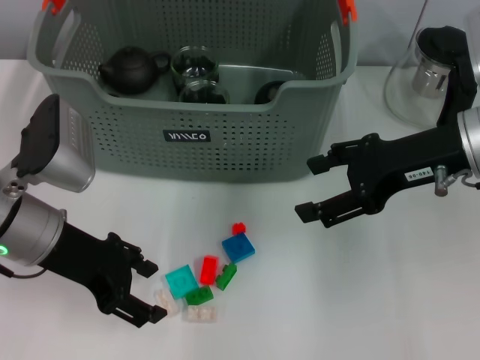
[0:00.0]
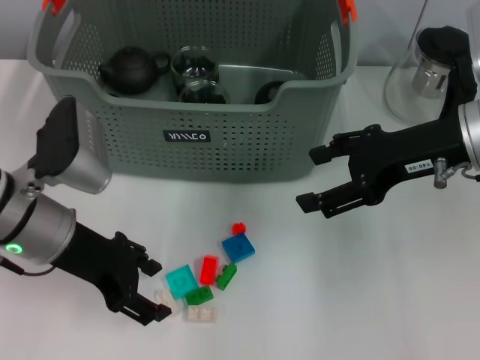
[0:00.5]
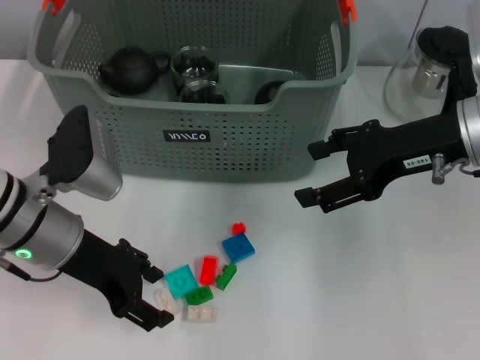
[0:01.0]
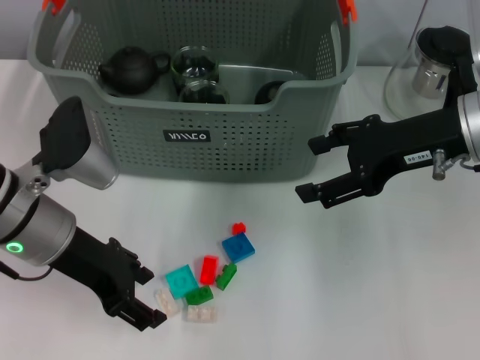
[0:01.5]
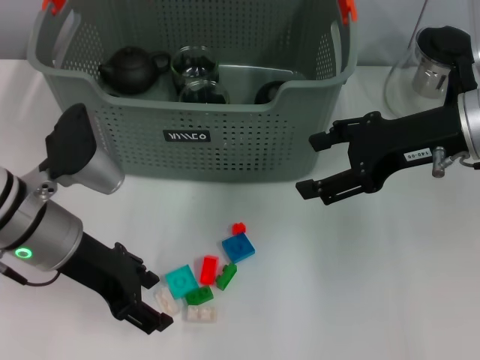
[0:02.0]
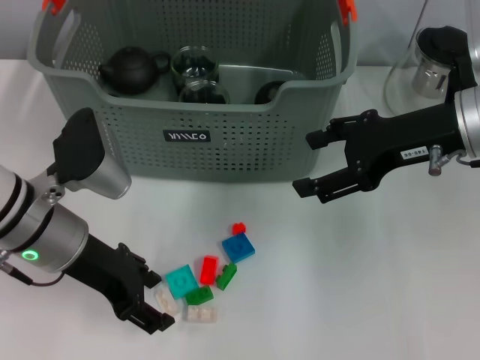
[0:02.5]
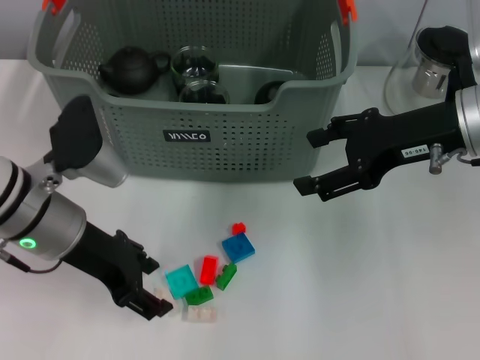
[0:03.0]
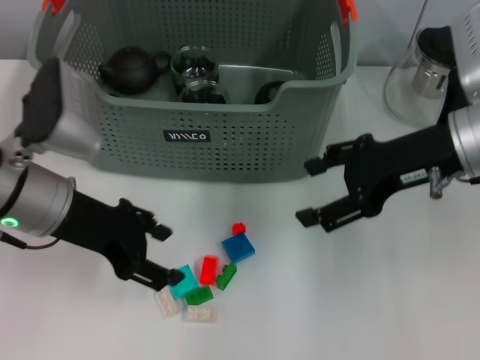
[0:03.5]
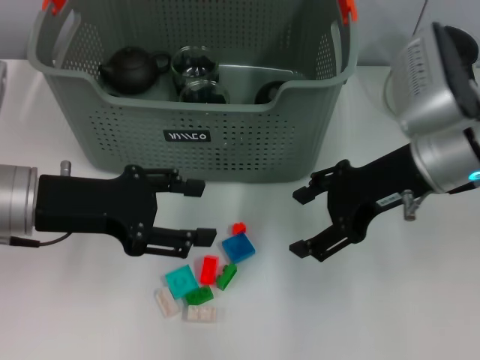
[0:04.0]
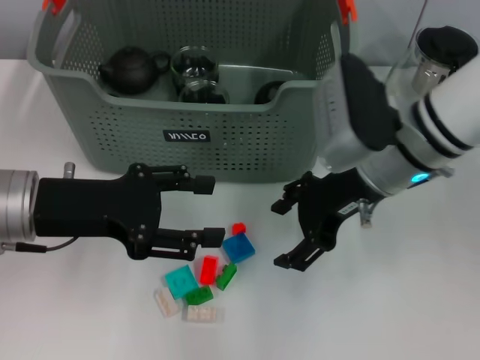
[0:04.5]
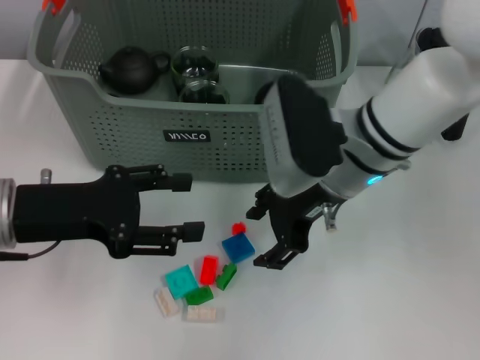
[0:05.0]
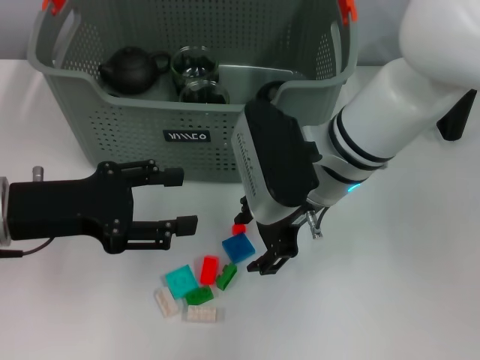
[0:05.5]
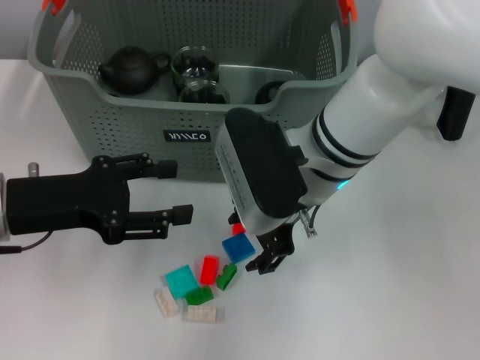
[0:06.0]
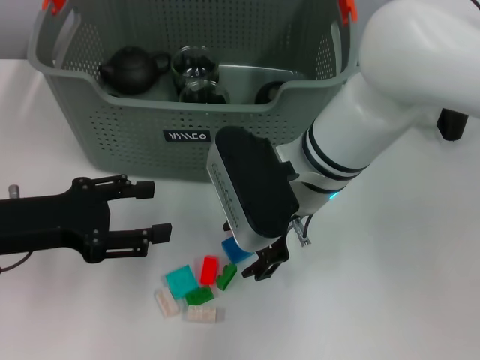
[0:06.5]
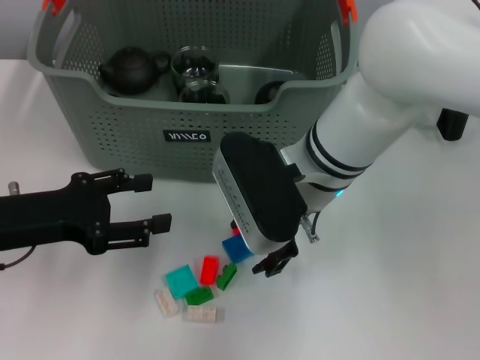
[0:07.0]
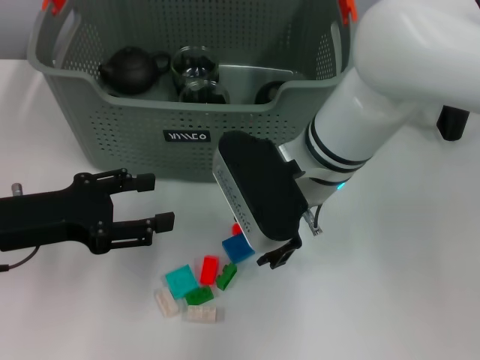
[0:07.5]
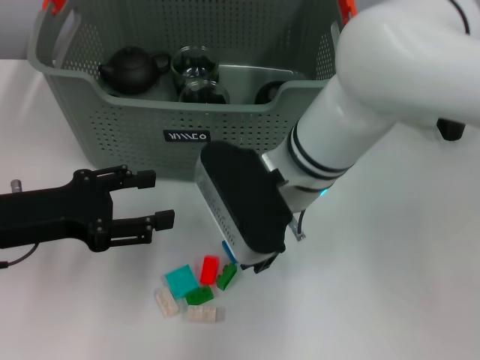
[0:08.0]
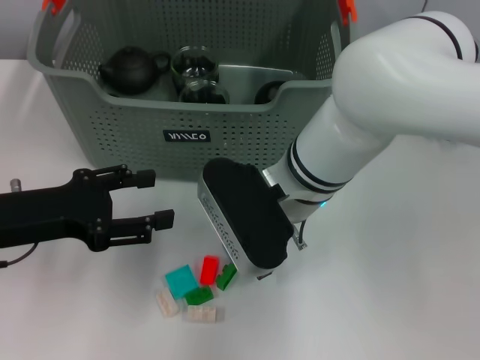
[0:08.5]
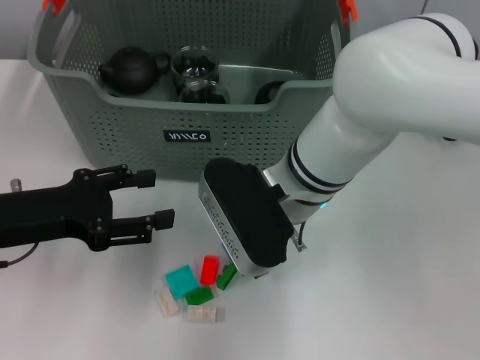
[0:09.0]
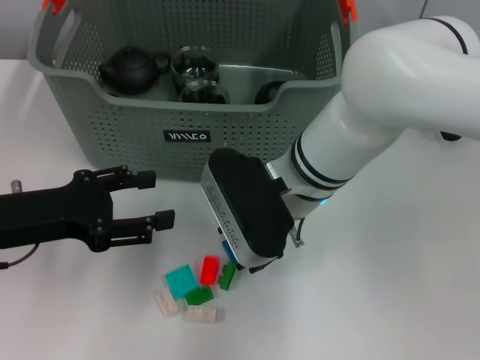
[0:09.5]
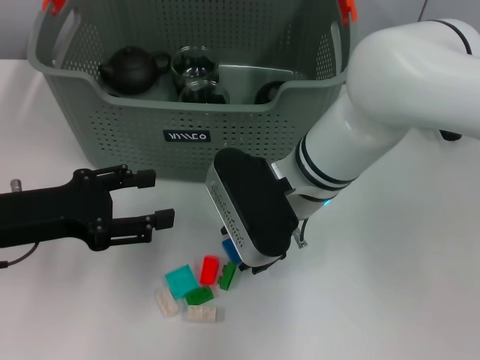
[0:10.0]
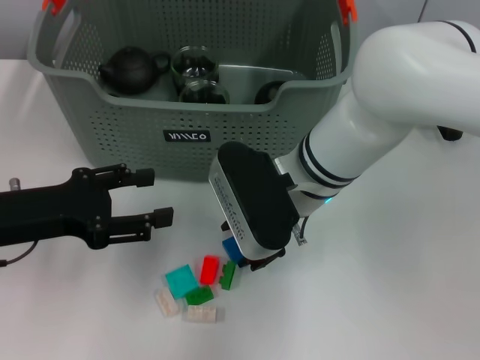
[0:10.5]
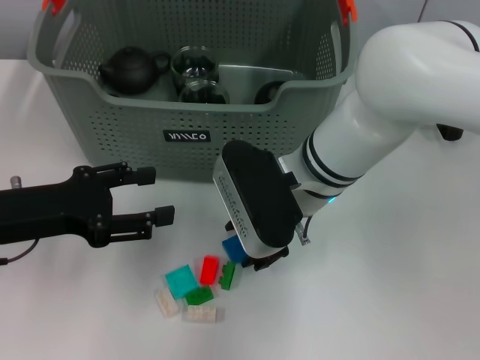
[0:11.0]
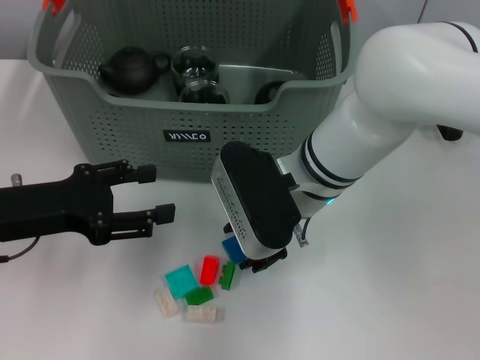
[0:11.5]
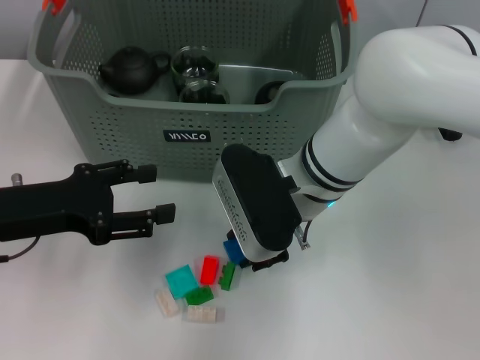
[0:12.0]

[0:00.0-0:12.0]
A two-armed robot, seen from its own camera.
Task of the whole recording: pick up the teacup on the table and place it into the storage bin, pick up the block on the table and place it into the storage bin.
0:00.0 to 0:02.0: The grippers move only a little.
0:04.0 to 0:06.0: The right gripper travels to the left by approximately 15 cm.
0:06.0 to 0:10.0: The grippers make only small movements.
0:10.0 to 0:12.0: Both grippers stay put.

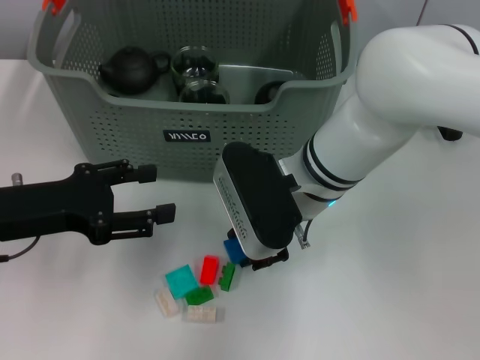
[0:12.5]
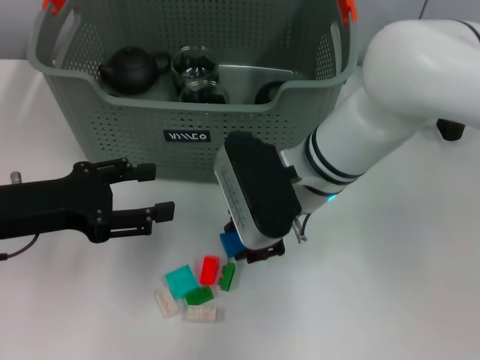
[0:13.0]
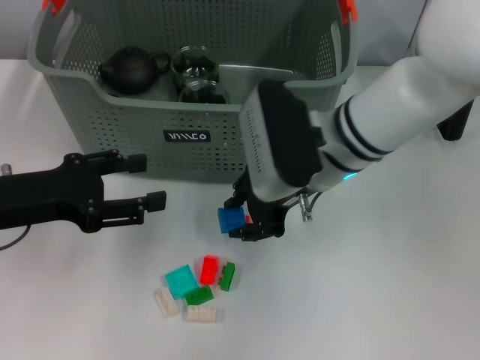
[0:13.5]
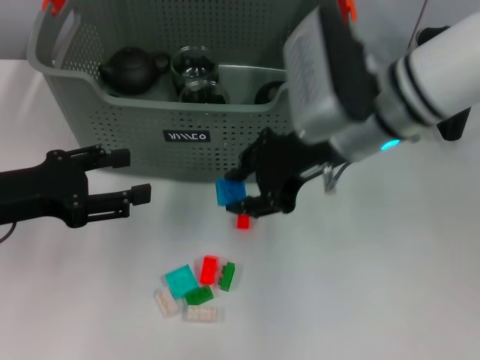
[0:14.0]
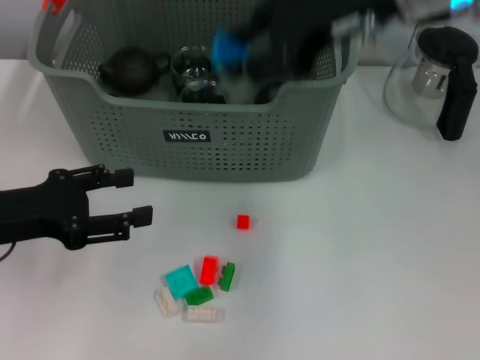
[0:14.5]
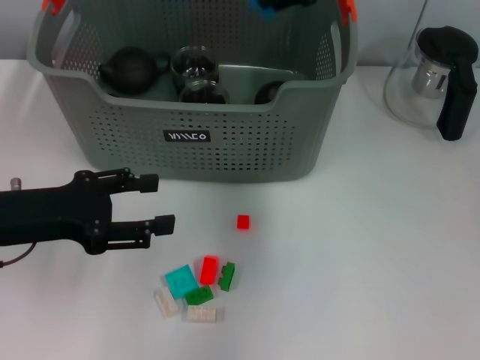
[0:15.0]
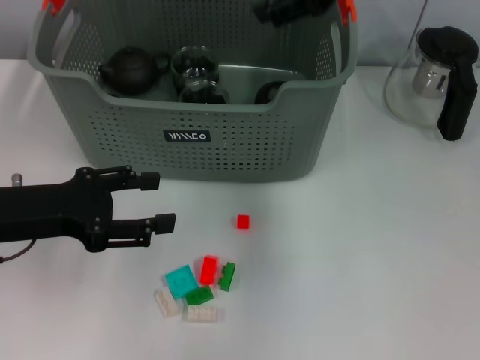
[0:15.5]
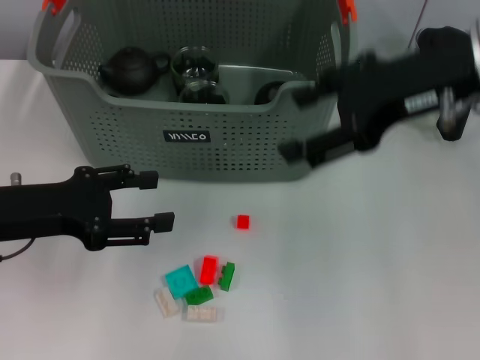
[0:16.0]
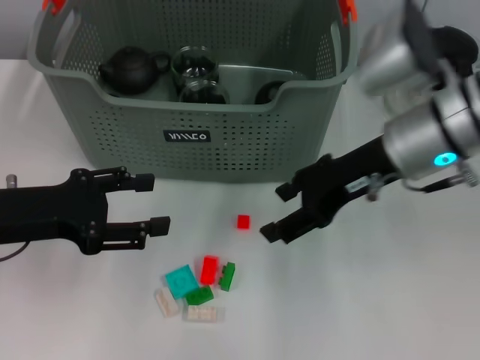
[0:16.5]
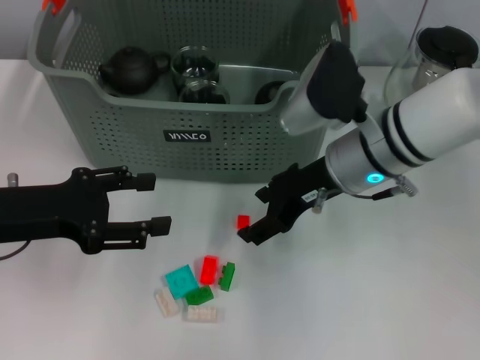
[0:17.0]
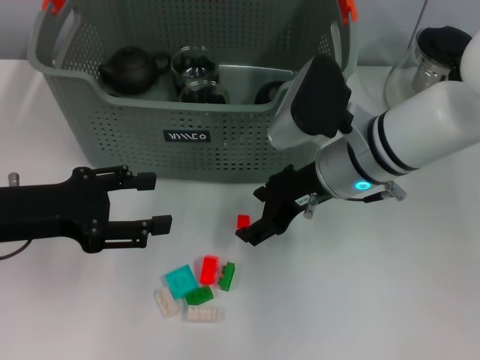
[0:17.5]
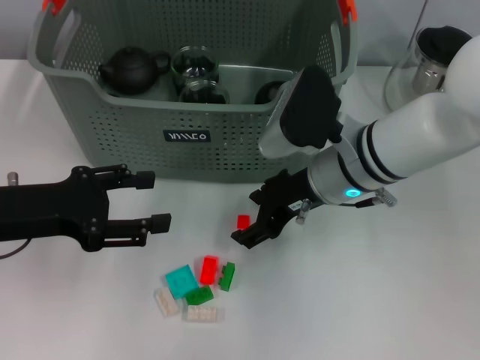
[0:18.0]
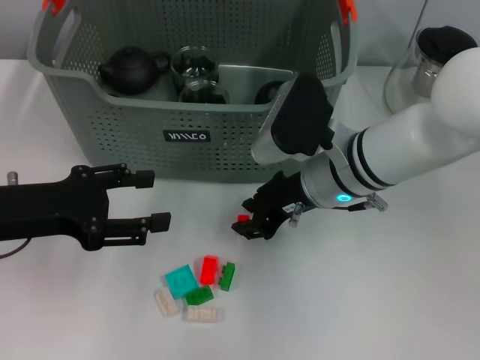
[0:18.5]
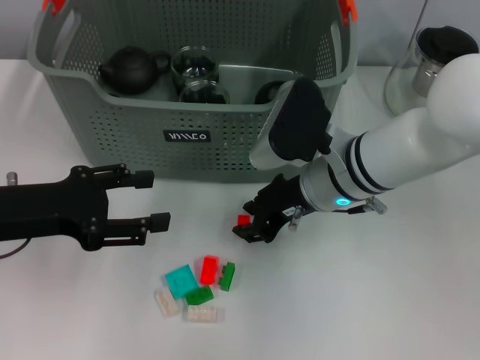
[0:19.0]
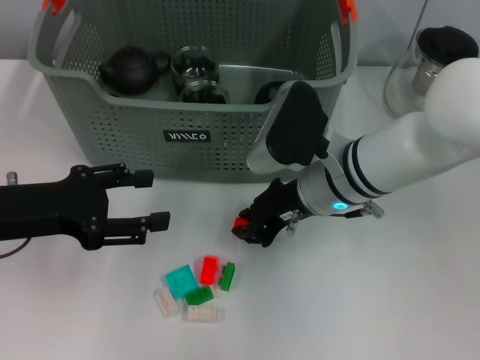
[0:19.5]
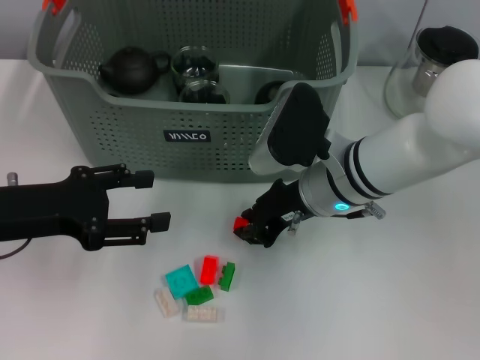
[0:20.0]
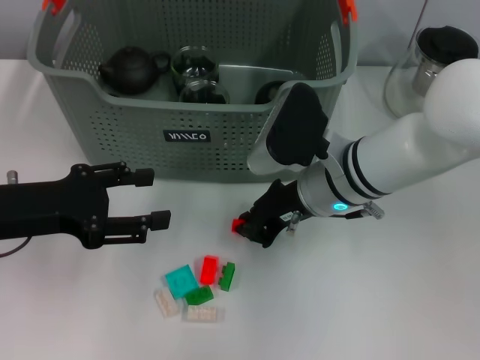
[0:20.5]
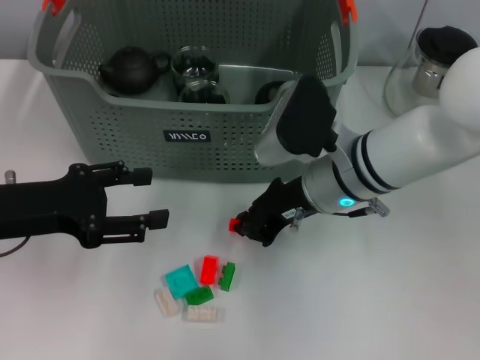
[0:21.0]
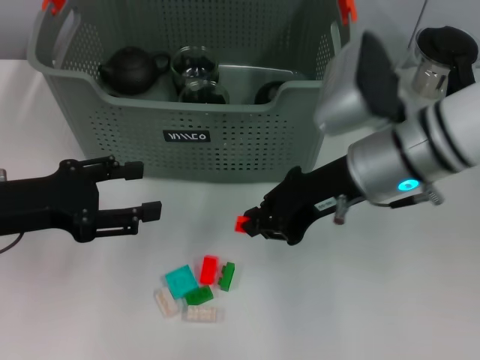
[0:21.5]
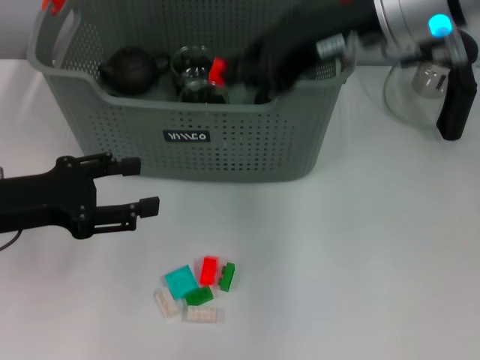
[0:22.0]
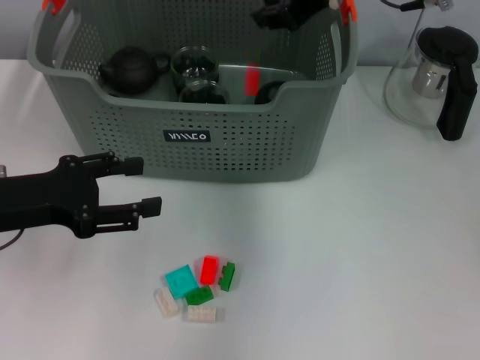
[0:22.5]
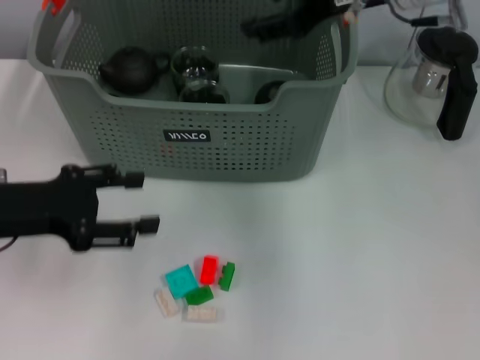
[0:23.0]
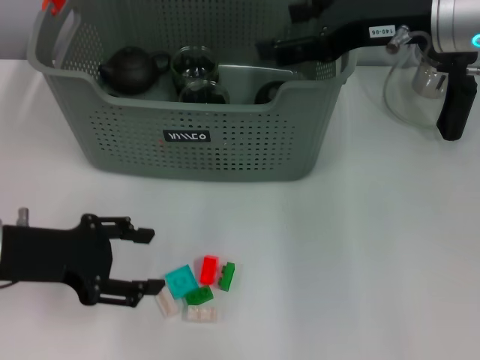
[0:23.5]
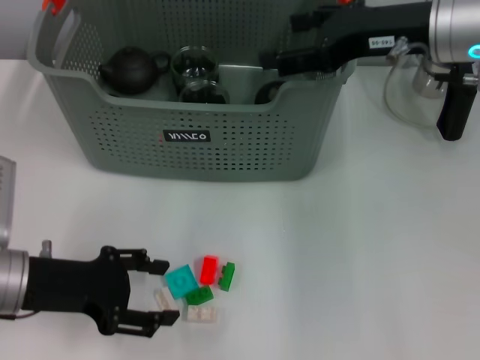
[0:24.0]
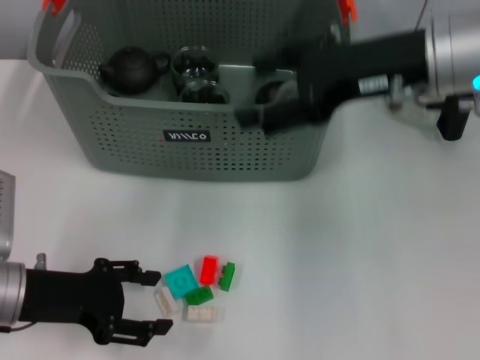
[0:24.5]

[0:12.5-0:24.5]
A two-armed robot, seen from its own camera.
Task of the whole recording: pick up the teacup on the table and place it into the storage bin, pick up the block on the table and place it into the storage bin.
Step, 0:13.0 to 0:15.0: Place the dark blue block in the storage box with right gripper.
Step, 0:15.5 to 0:20.5: Grasp the orange block with right gripper.
Step, 0:21.0 to 0:22.5: Place the orange block in the storage box with right gripper.
0:12.5 to 0:14.5: The right gripper is displaced upward and to the right by about 20 cm.
0:14.5 to 0:16.5: The right gripper moves downward, some 15 cm, and opens up.
0:16.5 to 0:18.5: The right gripper is displaced downward and to the left by roughly 10 cm, and closes its fingers.
0:18.5 to 0:20.5: Neither gripper changes place.
0:20.5 to 0:22.5: The right gripper shifts roughly 20 cm upward and forward.
0:22.5 to 0:24.5: The right gripper goes roughly 10 cm backward, and opens, while the left gripper heads downward, covering about 5 cm.

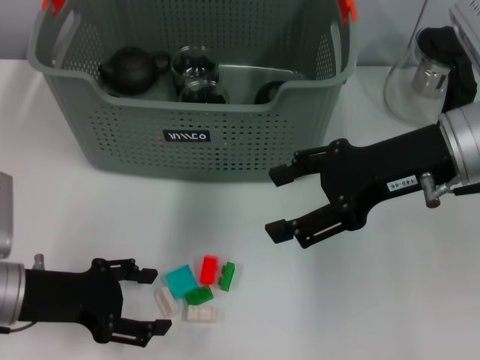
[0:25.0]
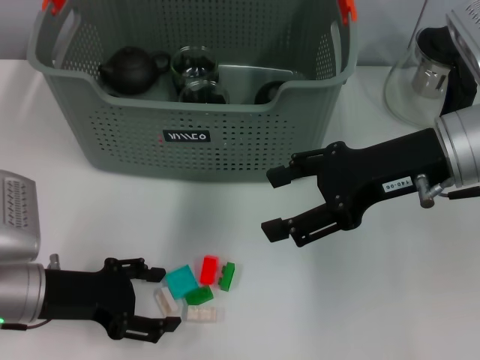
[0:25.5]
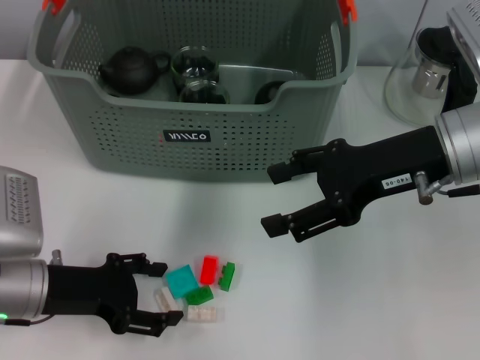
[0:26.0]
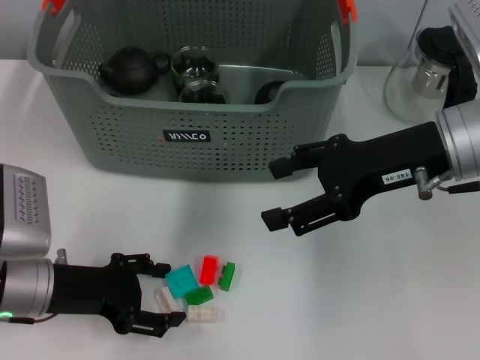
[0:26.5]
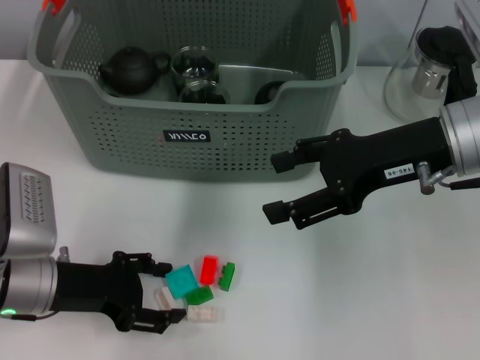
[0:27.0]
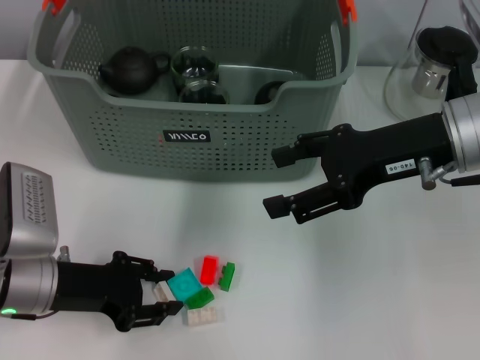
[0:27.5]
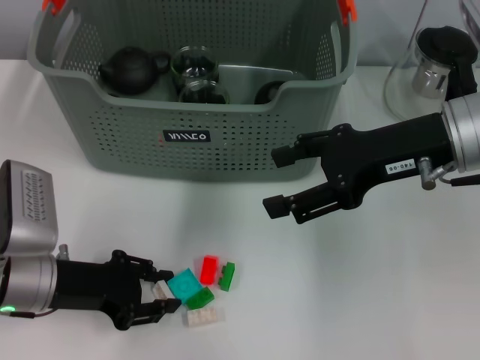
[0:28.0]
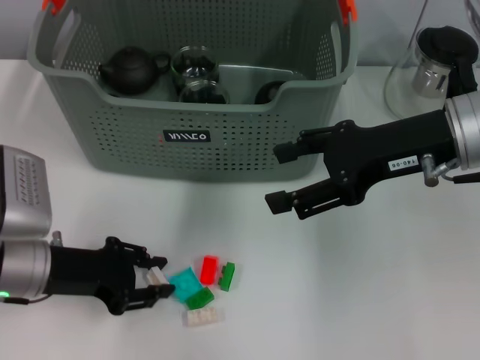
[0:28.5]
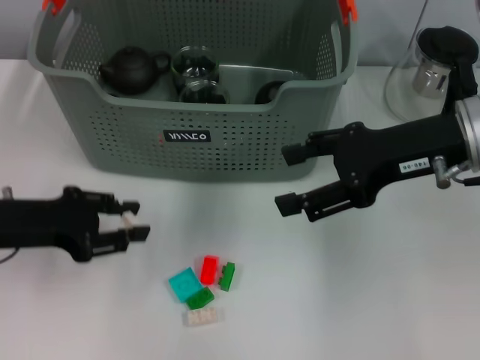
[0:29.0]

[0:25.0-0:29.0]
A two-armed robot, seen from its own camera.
Task of the whole recording: pick up the teacup on the table and place it into the storage bin, pick up the block on the table and place it into the storage bin.
Step, 0:25.0 to 0:28.0: Grasp the white block with left gripper.
0:25.0 to 0:27.0: The grippers stay close to where they were, moving slightly.
0:27.0 to 0:29.0: The left gripper heads upward, covering roughly 5 cm, and closes up.
